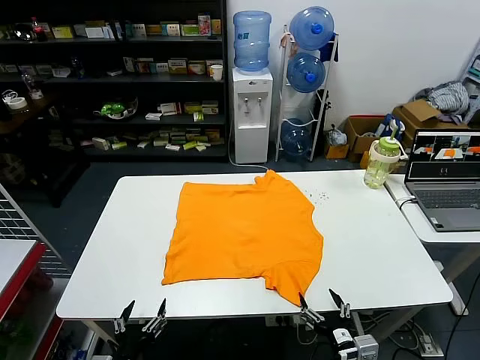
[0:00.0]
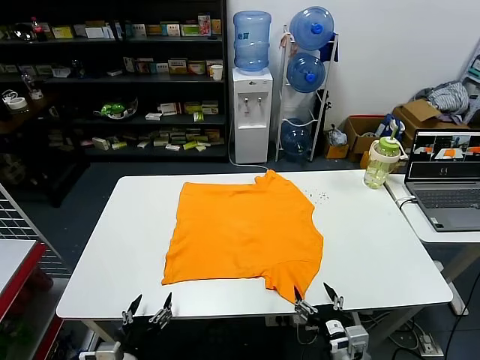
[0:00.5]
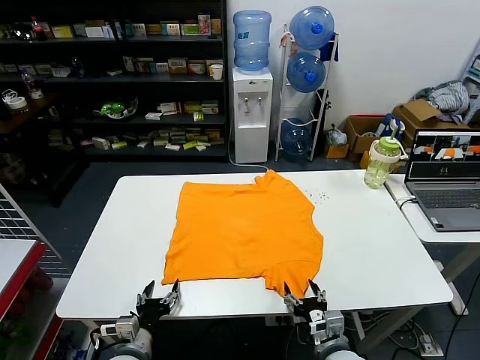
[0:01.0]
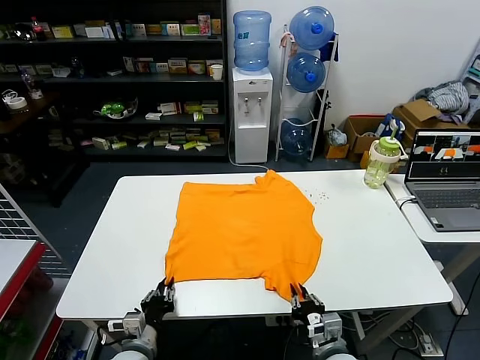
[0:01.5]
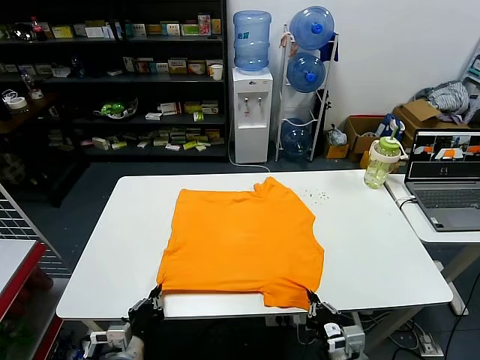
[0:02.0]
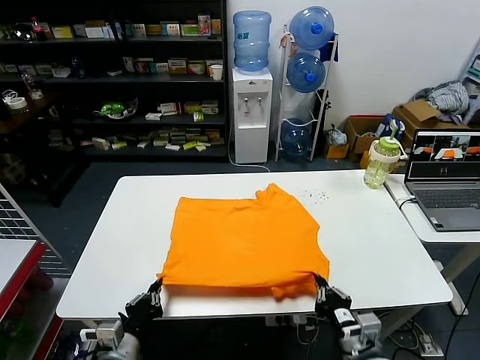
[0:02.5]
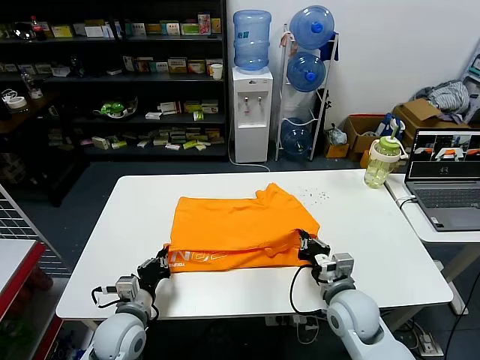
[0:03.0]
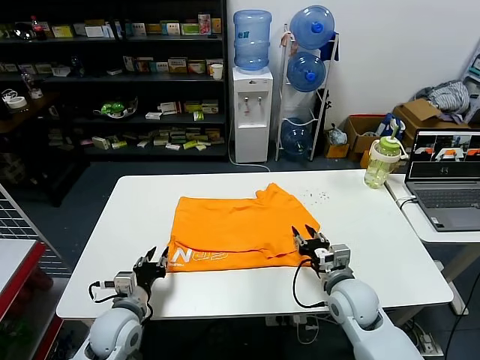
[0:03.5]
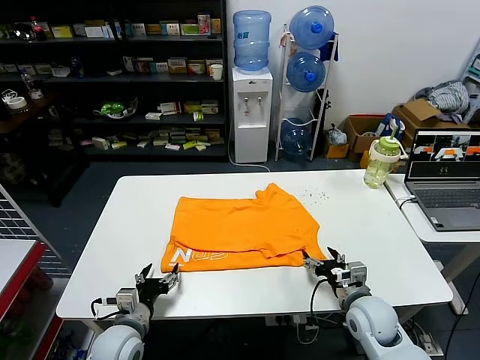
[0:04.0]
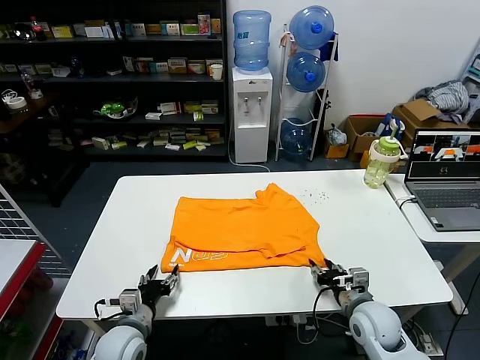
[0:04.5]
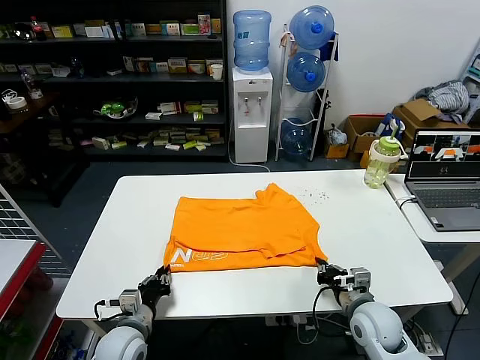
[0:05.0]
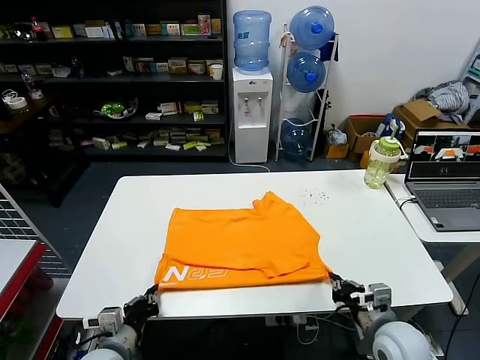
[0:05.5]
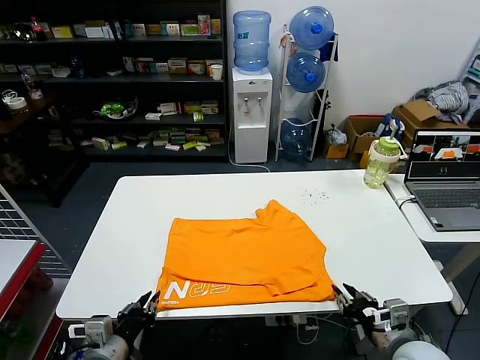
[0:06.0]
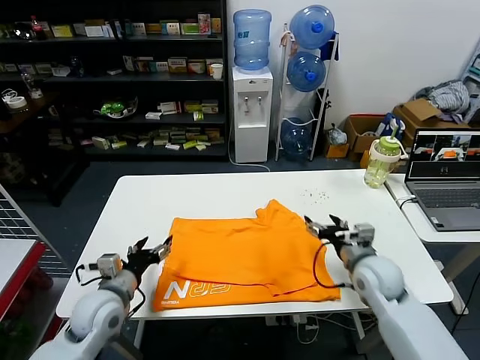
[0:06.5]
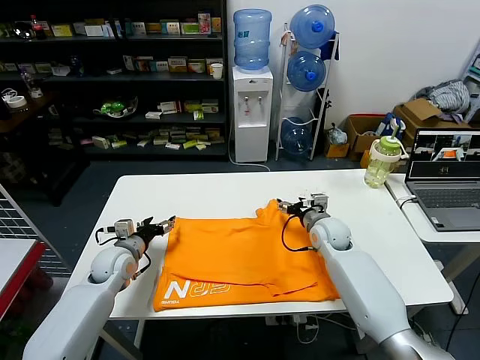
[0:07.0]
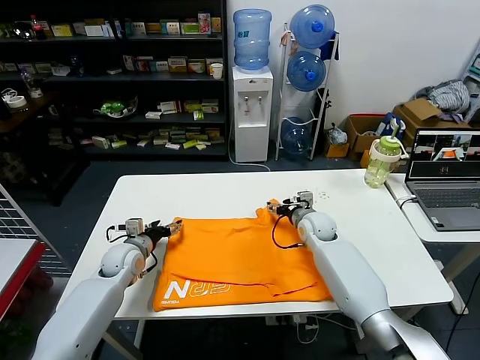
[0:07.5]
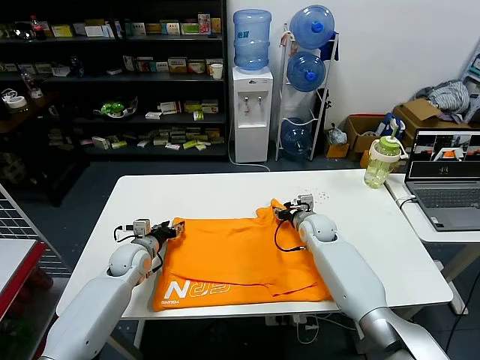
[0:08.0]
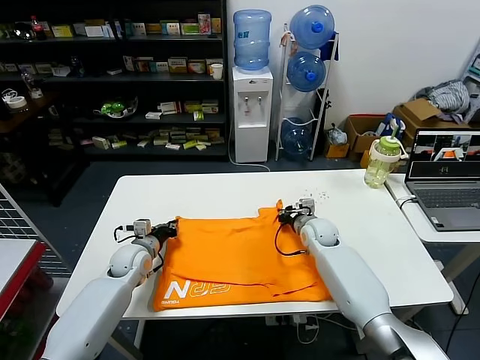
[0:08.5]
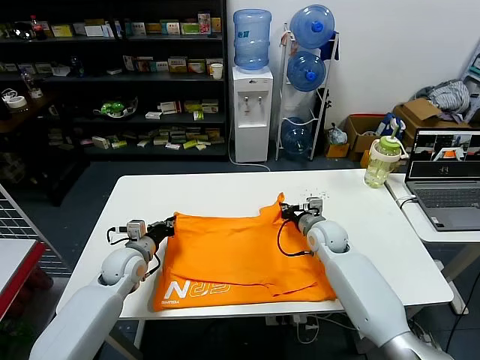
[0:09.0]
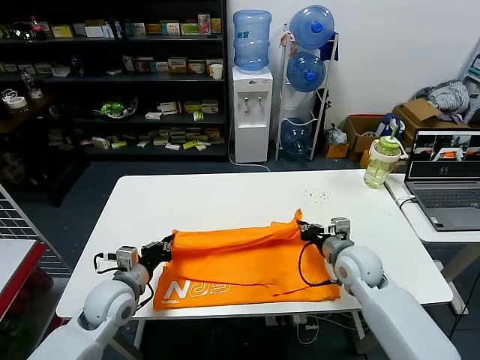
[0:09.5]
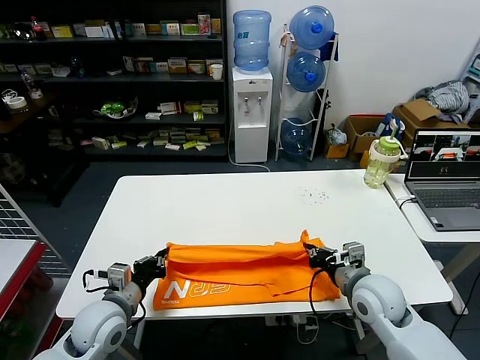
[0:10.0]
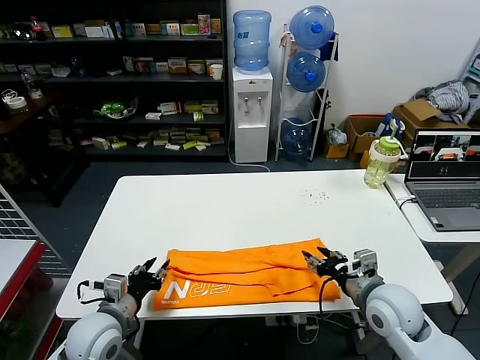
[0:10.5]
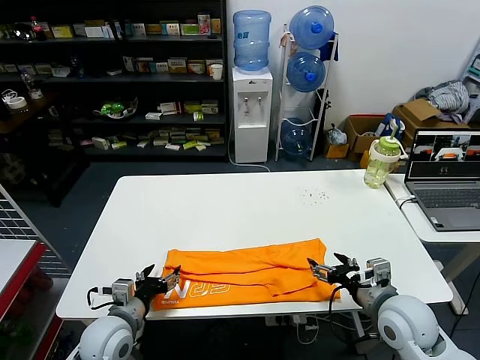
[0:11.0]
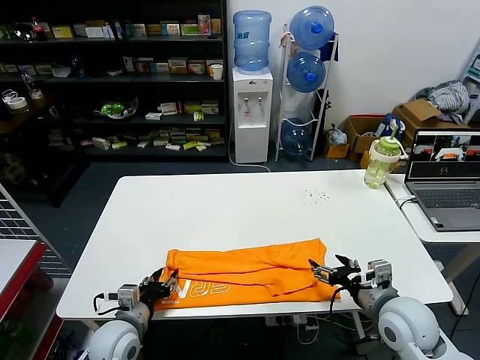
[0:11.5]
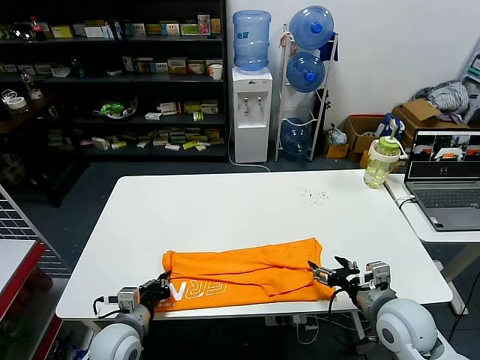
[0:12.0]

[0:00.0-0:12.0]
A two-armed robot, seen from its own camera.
Task of the whole recording: fold and organize the clothes.
Step, 0:00.0 to 0:01.5: use both grippers simultaneously to clamp the lower edge of the clothing fabric.
Step, 0:02.0 to 0:03.0: use both grippers to drag the lower edge of the fabric forward and fold it over the upper edge.
Step, 0:03.5 to 0:05.5: Drag the clothes downward with both gripper.
Step, 0:06.0 to 0:08.5: use both grippers simultaneously to clamp the upper edge of the clothing fabric.
Step, 0:09.0 to 0:10.0: use both grippers to drag the upper edge of the fabric backward and fold it over the lower edge.
Step, 0:10.5 to 0:11.5: use the left gripper to clamp the left edge of the fabric.
0:02.0 to 0:04.0: The left gripper is displaced forward by roughly 5 cm, and opens. Meanwhile the right gripper shifts some 15 cm forward, and opens up.
0:04.0 to 0:06.0: The two grippers go roughly 10 cm backward and upward. The right gripper closes up; the left gripper closes.
0:06.0 to 0:08.0: Both grippers move forward, approximately 30 cm. The left gripper opens its fingers, while the right gripper opens and closes again.
0:08.0 to 0:10.0: Both grippers move backward, some 20 cm. The right gripper closes; the left gripper closes its fingers.
0:10.0 to 0:12.0: The left gripper travels downward by about 5 cm, and opens, then closes again. The right gripper moves about 5 cm, and opens.

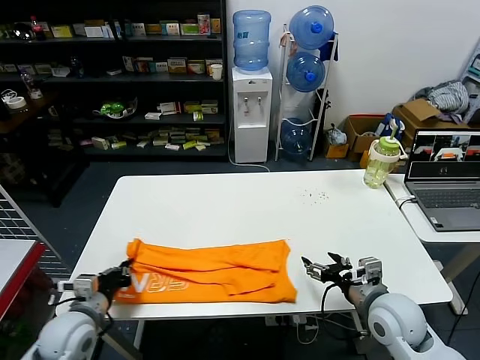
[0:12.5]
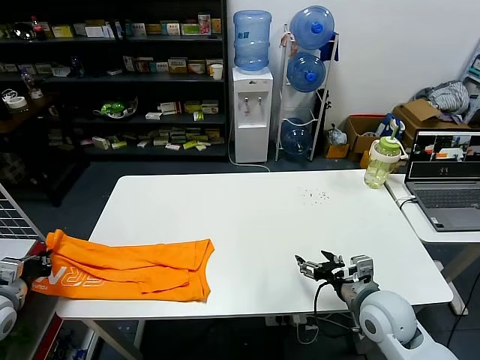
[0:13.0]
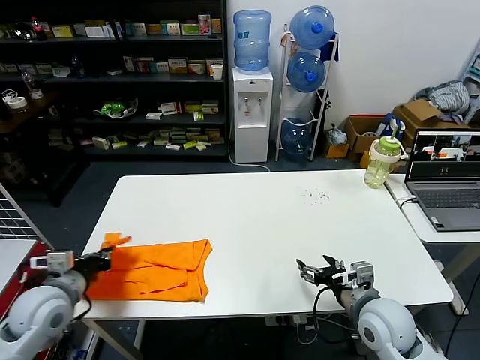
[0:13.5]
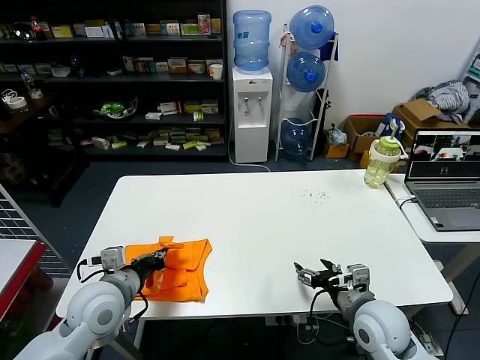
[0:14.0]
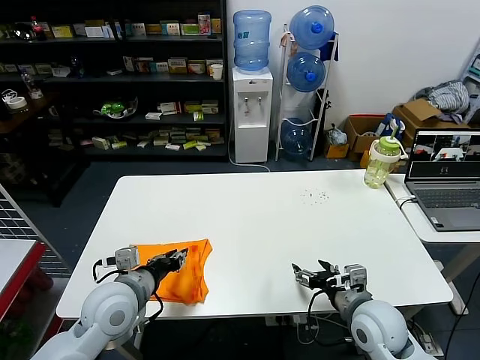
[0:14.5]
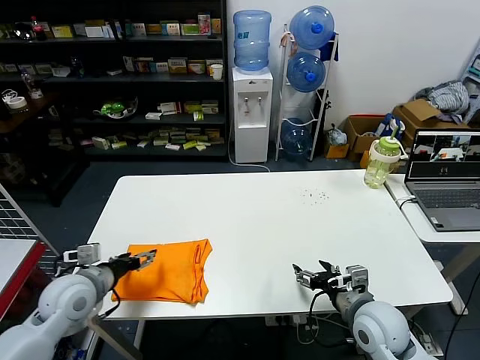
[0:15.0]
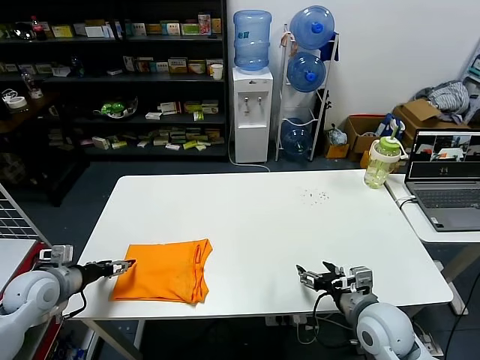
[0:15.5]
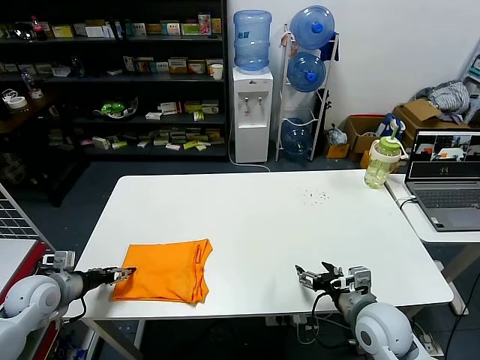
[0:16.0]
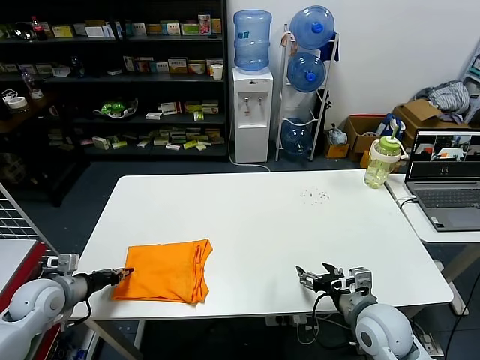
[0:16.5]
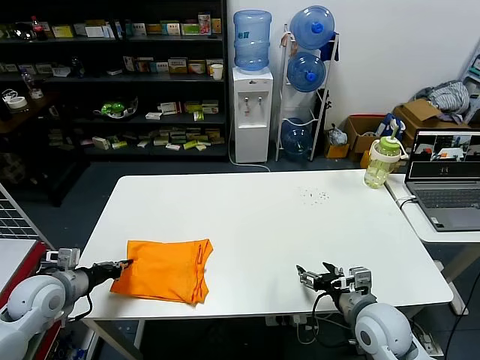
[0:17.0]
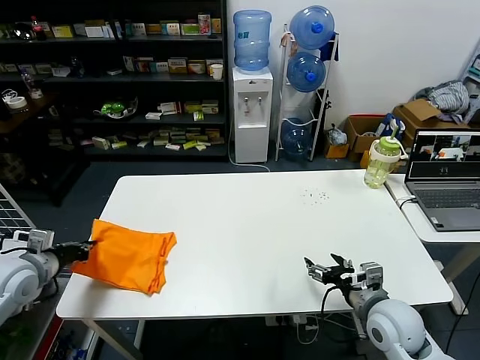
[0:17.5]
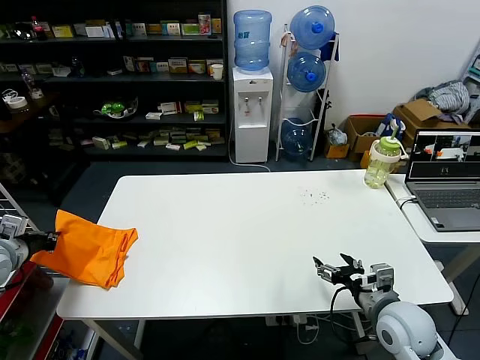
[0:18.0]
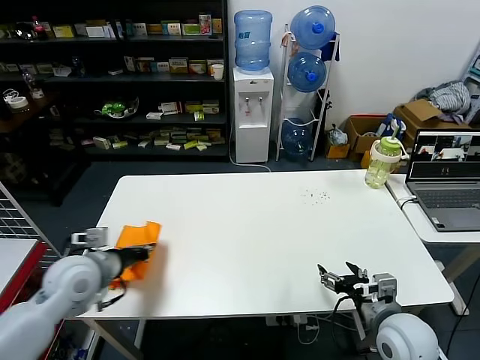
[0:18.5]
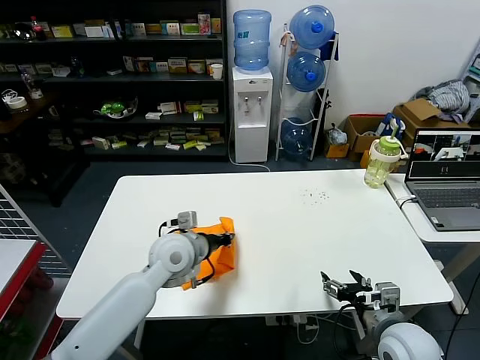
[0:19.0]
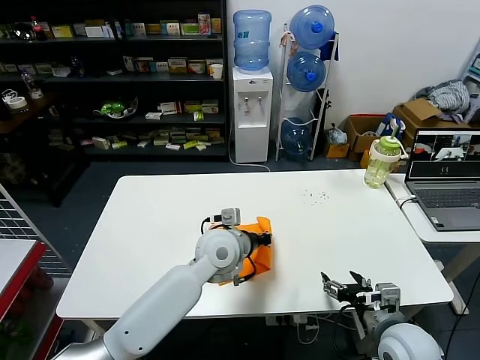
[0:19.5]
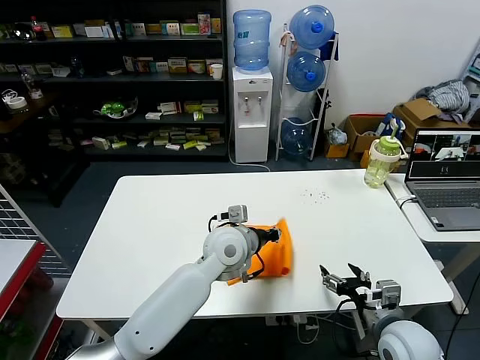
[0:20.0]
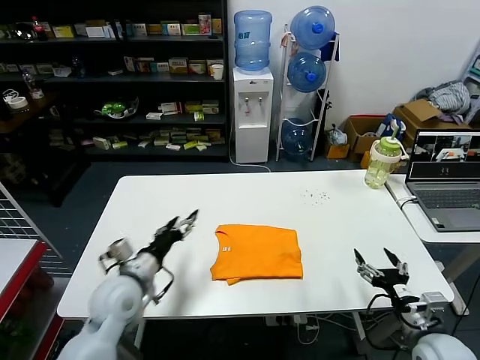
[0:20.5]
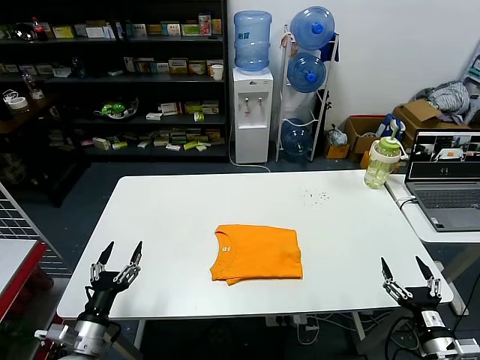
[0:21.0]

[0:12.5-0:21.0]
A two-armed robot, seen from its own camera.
Task of the whole recording: fold and organize the clothes.
Step, 0:12.5 to 0:14.5: use the left gripper to drag the left edge of the fabric to the left and folds it over the right edge.
Step, 0:15.0 to 0:20.0: Flip the folded clothes over with left gripper.
0:12.5 to 0:14.5: The left gripper travels to the right and upward by roughly 10 cm, and opens up.
0:14.5 to 0:16.5: The left gripper moves to the left, about 20 cm, and opens, then closes once more.
0:16.5 to 0:19.0: The left gripper shifts approximately 30 cm to the right.
0:19.0 to 0:21.0: The right gripper goes some 15 cm to the right, backward and downward. The left gripper shifts about 30 cm backward, to the left and downward, and opens its fingers.

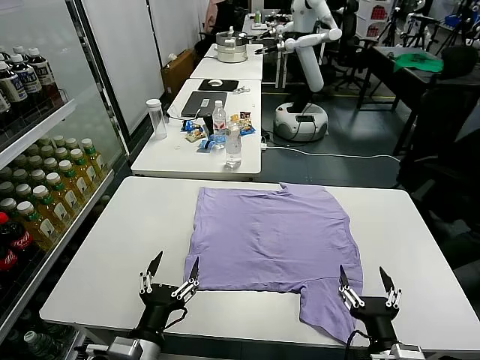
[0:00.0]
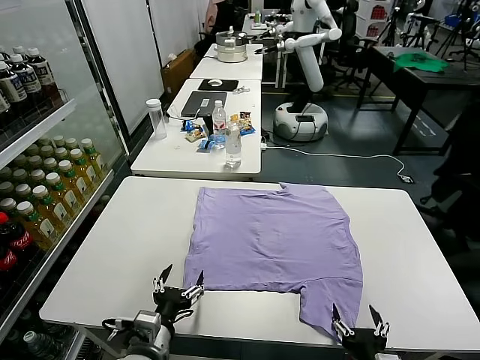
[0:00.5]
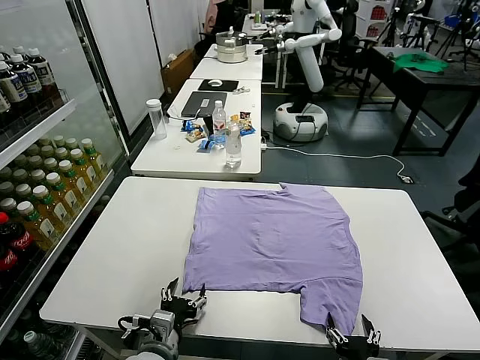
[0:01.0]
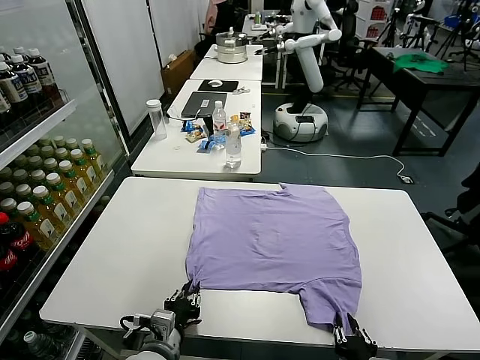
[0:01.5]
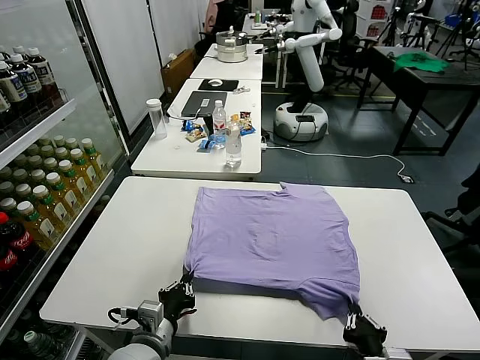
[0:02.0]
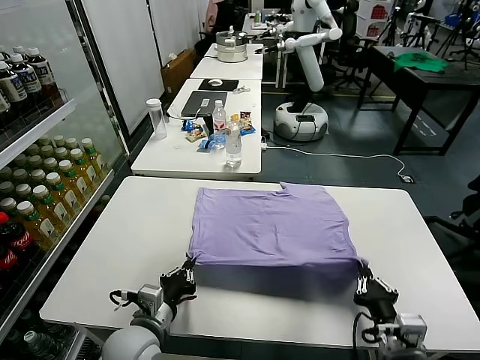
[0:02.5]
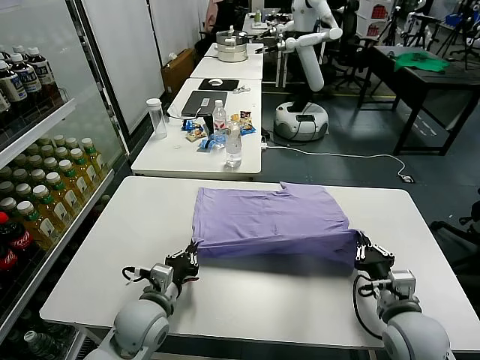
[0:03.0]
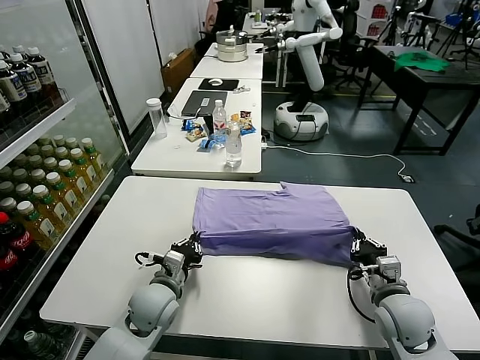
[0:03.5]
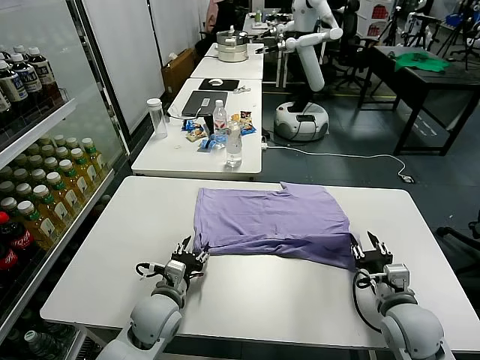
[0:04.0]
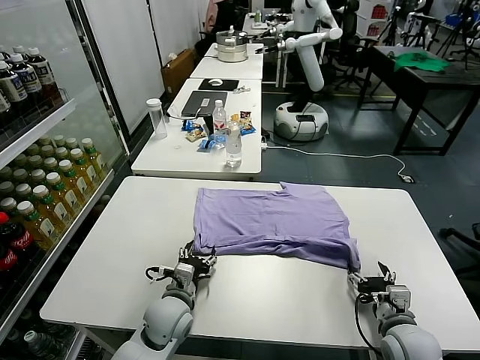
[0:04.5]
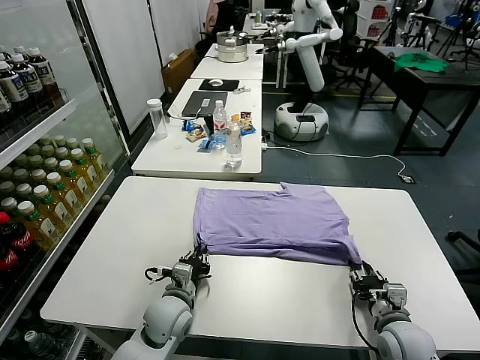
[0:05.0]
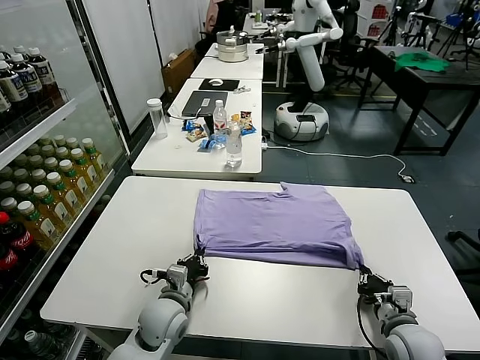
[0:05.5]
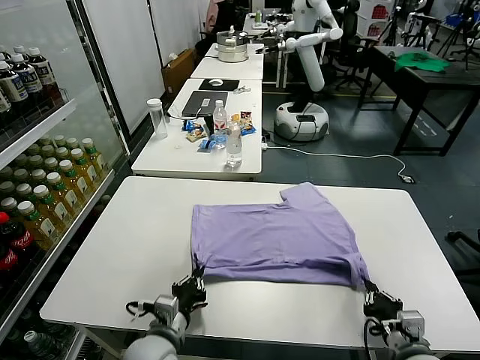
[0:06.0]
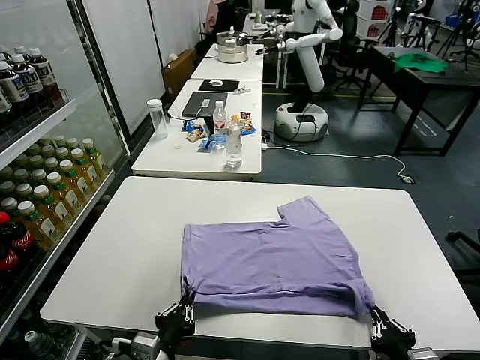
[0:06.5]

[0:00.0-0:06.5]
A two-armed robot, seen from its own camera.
Task of the whole recording: fold and organize the clothes.
Step, 0:00.0 to 0:01.5: use both grippers simultaneously to clamp the lower edge of the clothing fabric.
Step, 0:02.0 to 0:04.0: use both grippers to drag the lower edge of the fabric forward and fold it over the upper edge.
0:02.0 to 0:04.5: The left gripper moves forward, approximately 10 cm, and opens. The right gripper travels forward, to the right and downward by some 15 cm, and opens its fingers.
0:04.5 to 0:06.5: The left gripper shifts roughly 15 cm backward, and closes its fingers, while the right gripper goes some 15 cm backward and upward, and closes.
